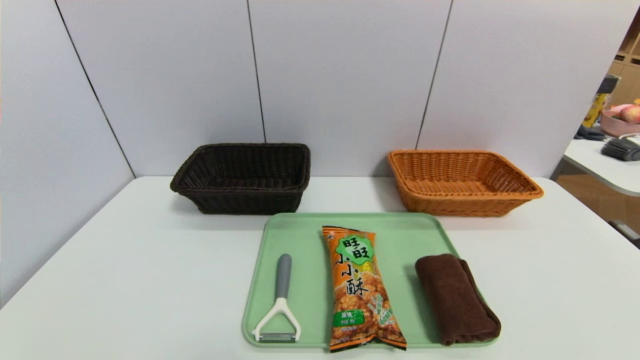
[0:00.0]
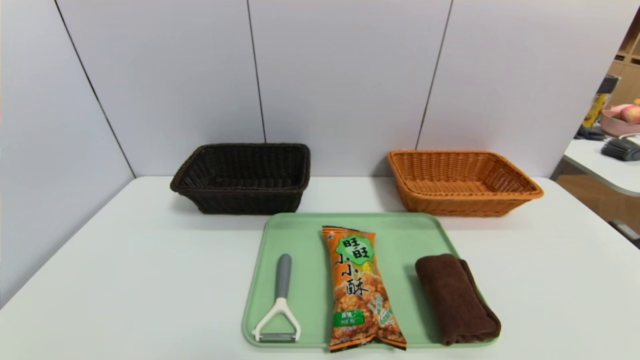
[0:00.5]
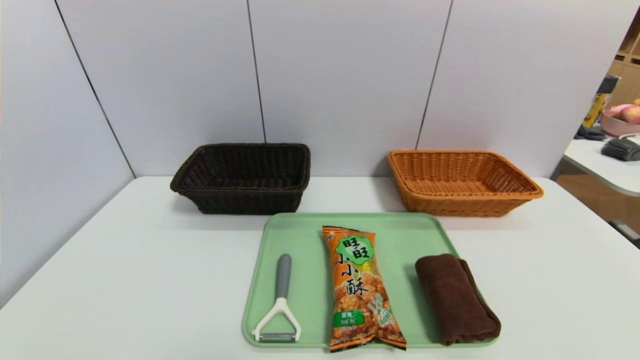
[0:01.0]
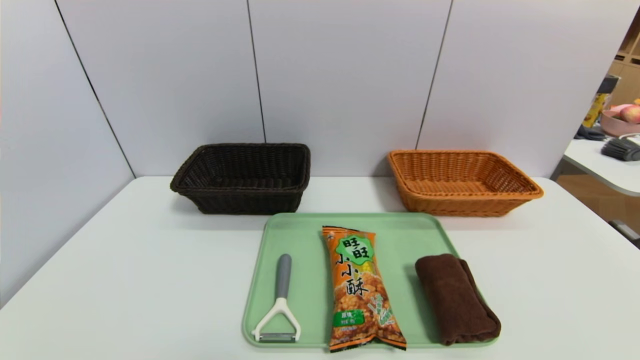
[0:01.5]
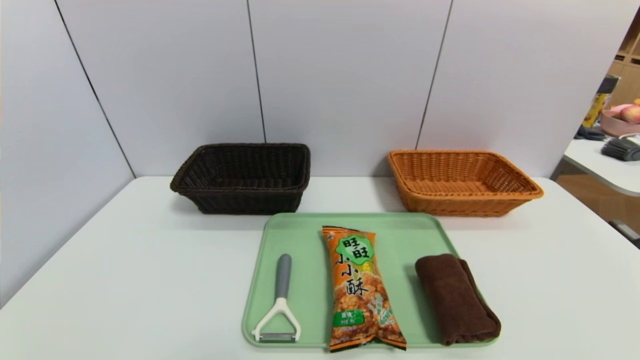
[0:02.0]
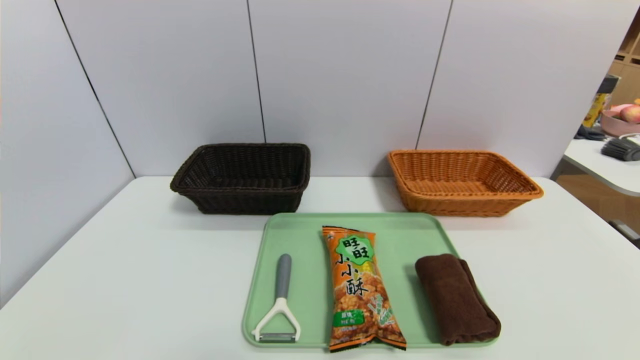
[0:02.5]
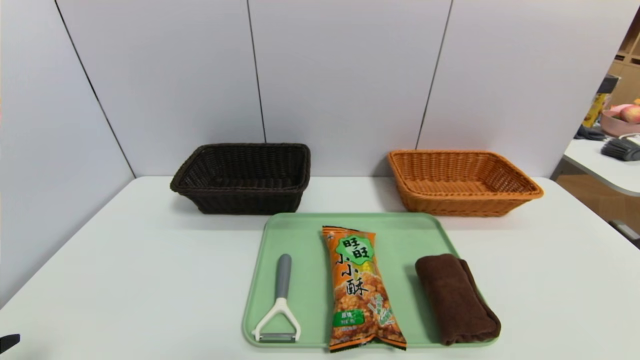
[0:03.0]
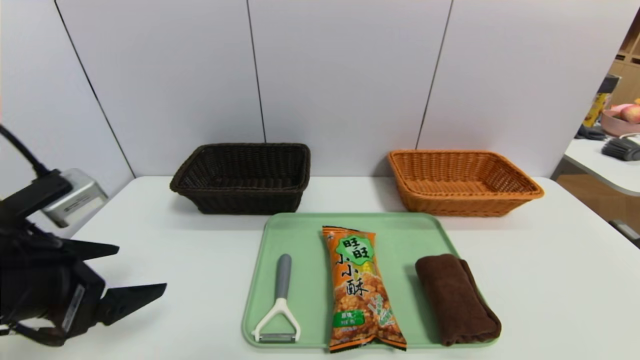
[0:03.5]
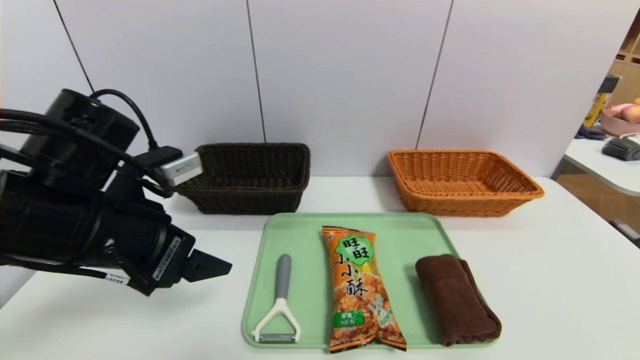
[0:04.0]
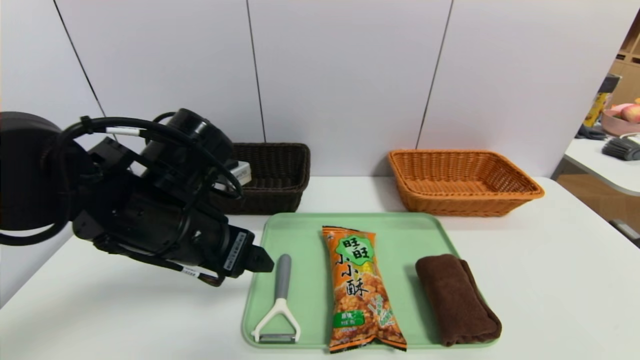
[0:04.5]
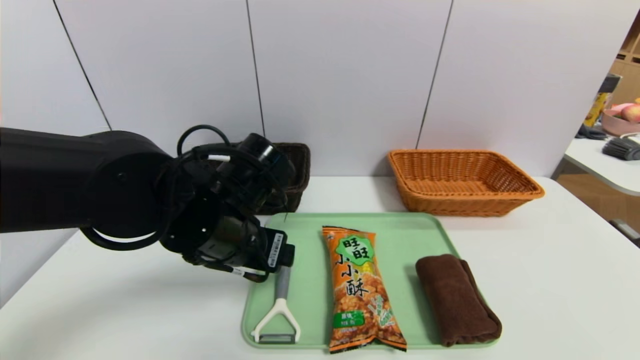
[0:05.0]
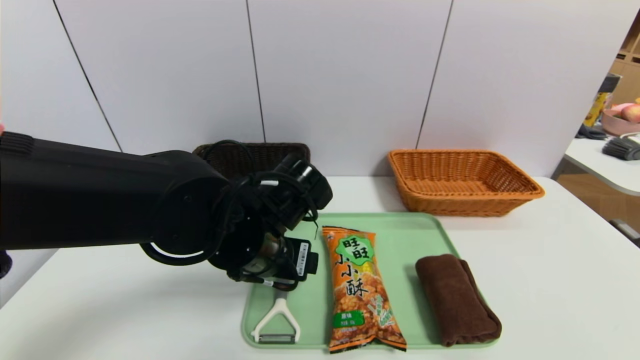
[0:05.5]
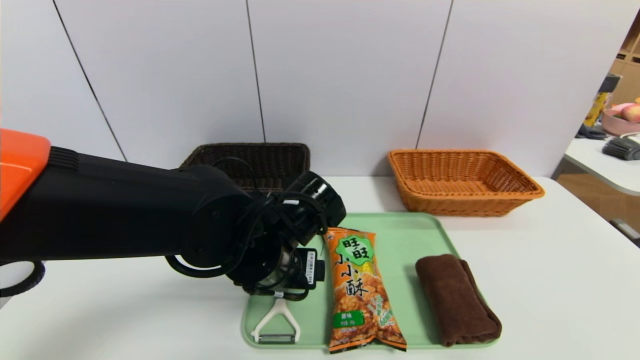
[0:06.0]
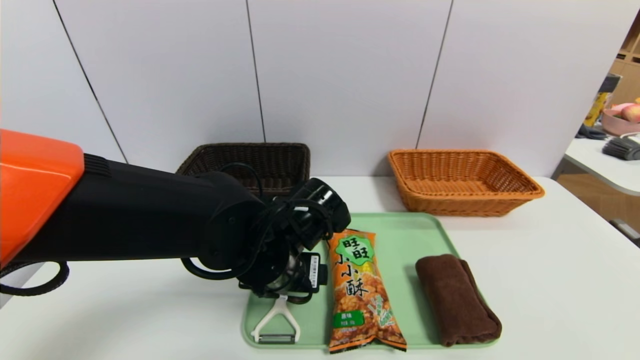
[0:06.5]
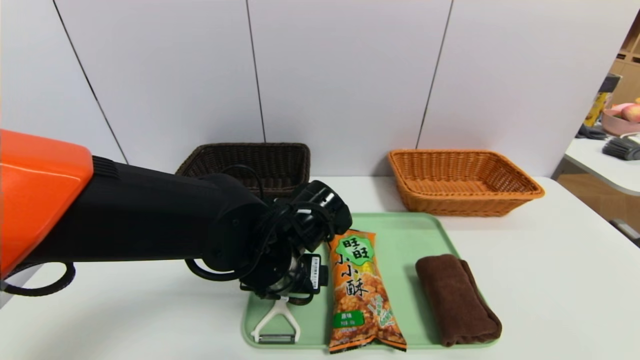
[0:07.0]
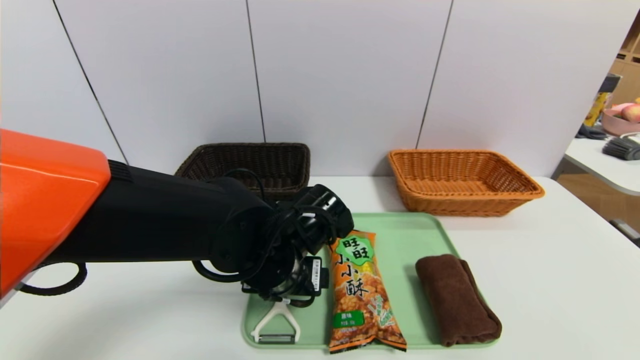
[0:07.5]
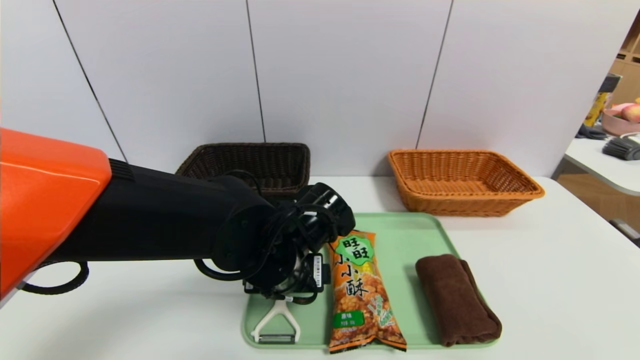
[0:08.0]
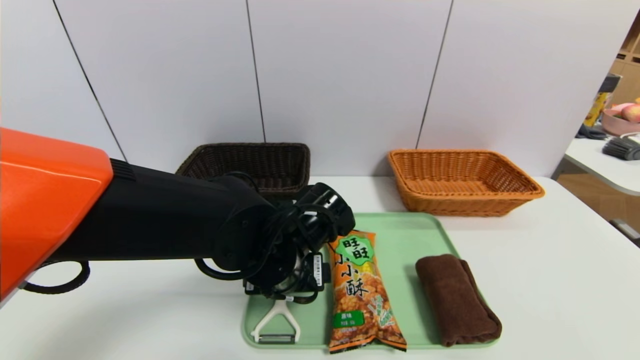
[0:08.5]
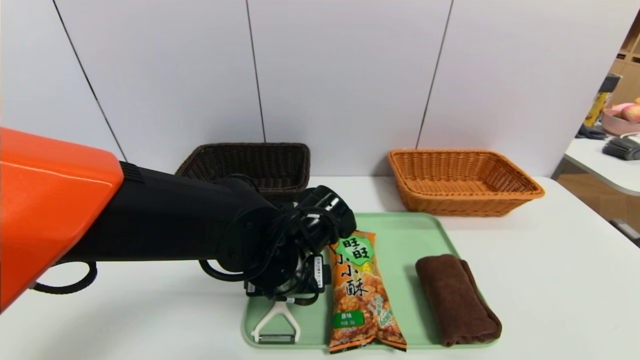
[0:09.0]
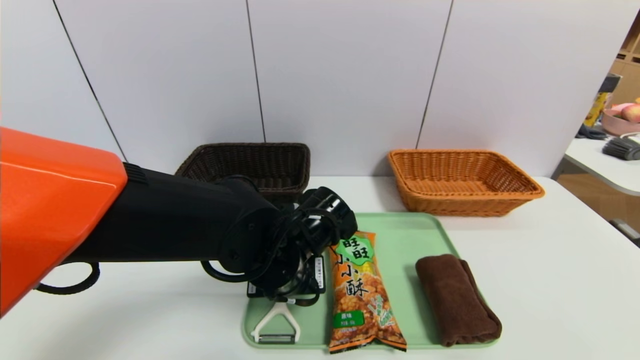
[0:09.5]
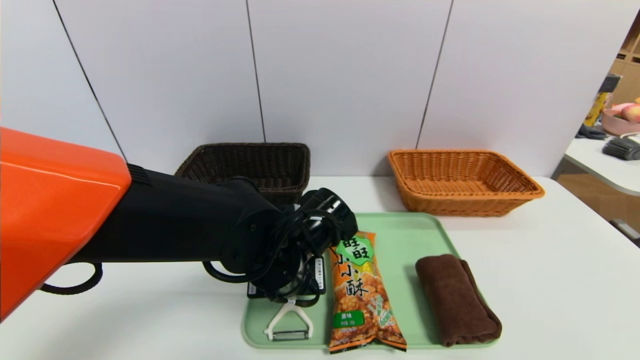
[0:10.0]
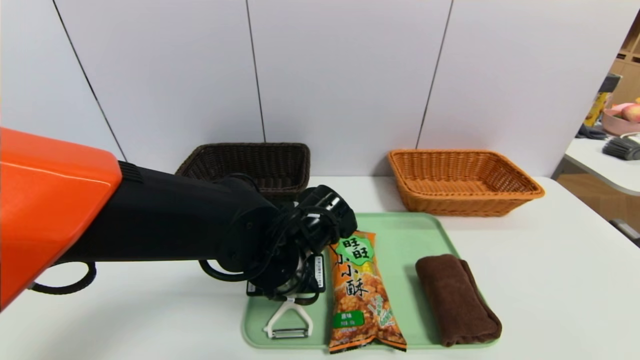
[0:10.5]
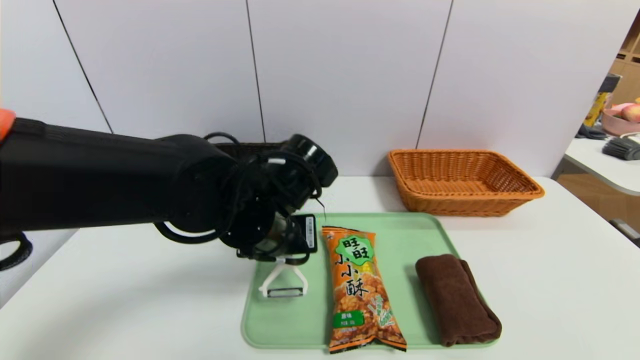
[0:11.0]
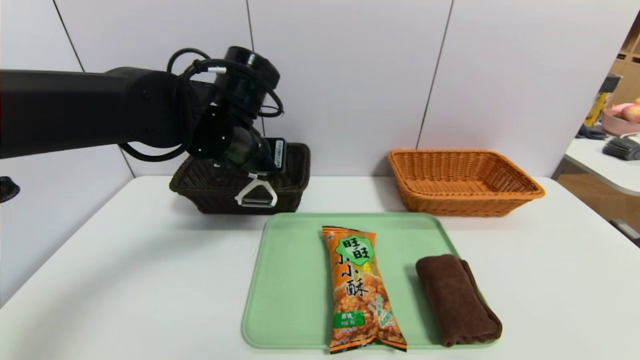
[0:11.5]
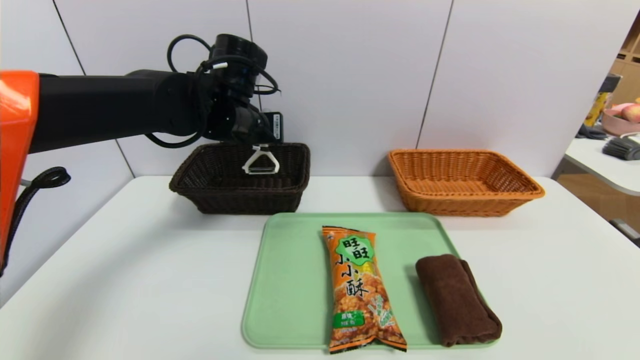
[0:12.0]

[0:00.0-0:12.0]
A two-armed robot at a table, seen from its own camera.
Task of the whole recording: place the food in the right basket with the right gripper, and place the non food items in the left basket with the left gripper.
0:00.0 to 0:02.0: The two grippers keep their place.
0:02.0 to 0:04.0: The left gripper shifts roughly 30 cm forward, upward and to the right.
0:04.0 to 0:06.0: The left gripper travels to the right and downward by about 15 cm.
0:06.0 to 0:08.0: There are only small adjustments of the grippers.
0:08.0 to 0:10.0: The left gripper closes.
0:10.0 to 0:12.0: The left gripper is displaced forward, upward and to the left by some 20 cm.

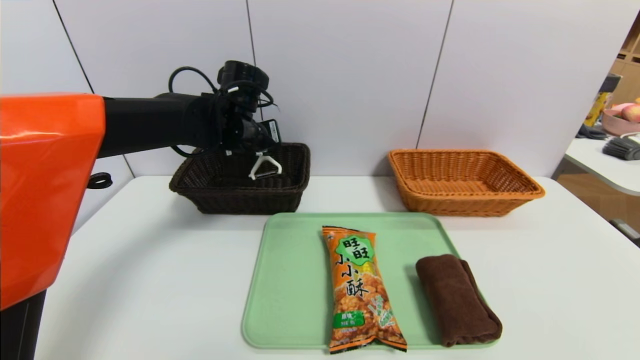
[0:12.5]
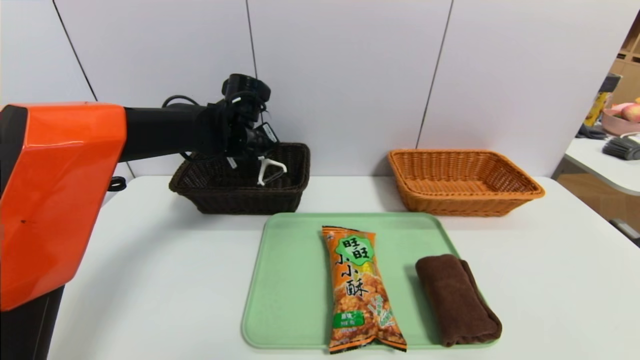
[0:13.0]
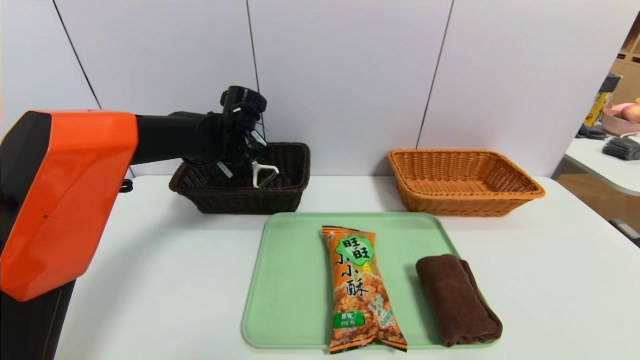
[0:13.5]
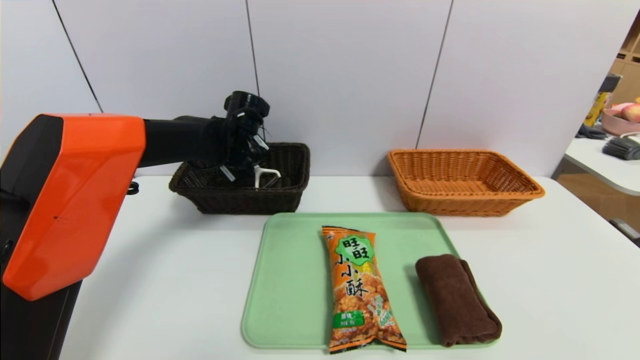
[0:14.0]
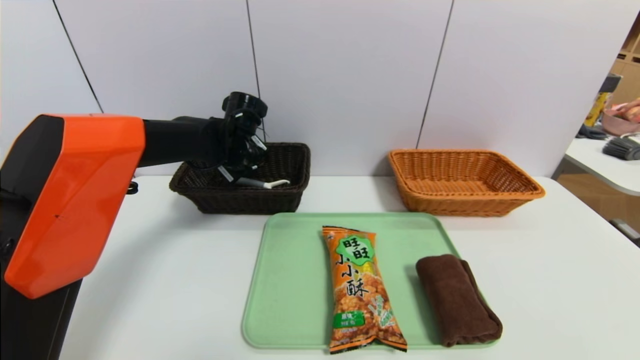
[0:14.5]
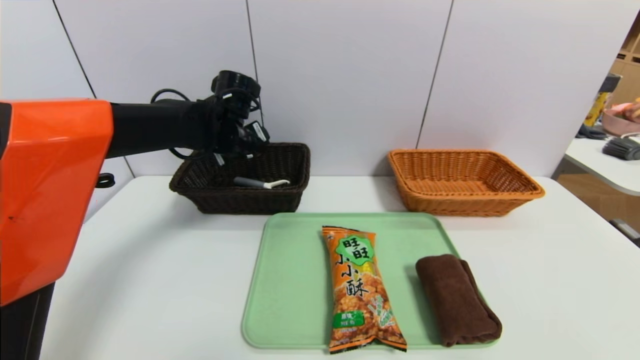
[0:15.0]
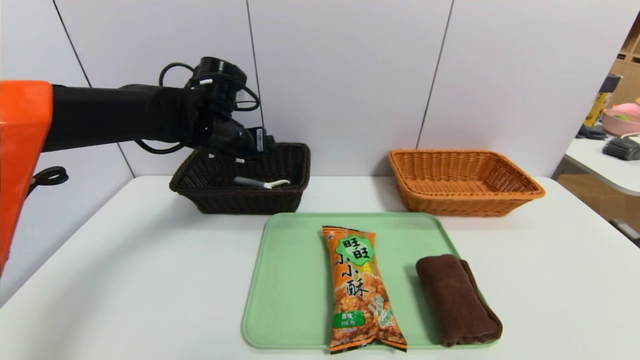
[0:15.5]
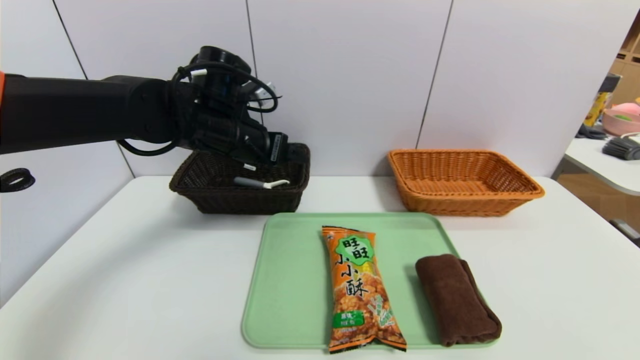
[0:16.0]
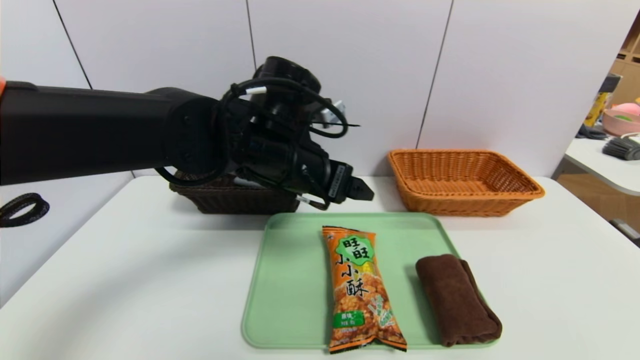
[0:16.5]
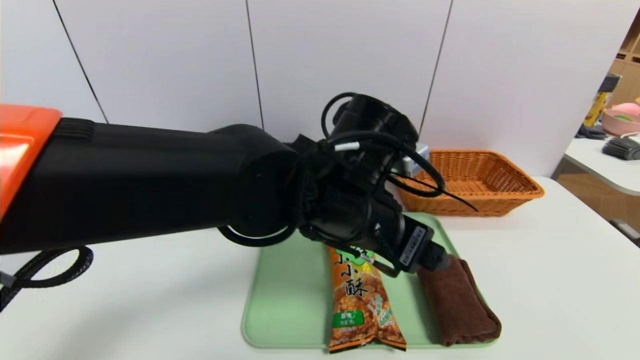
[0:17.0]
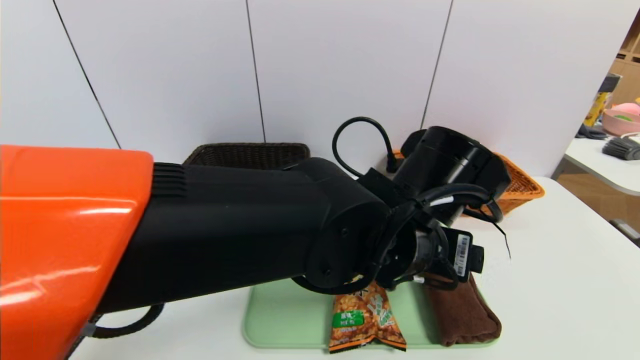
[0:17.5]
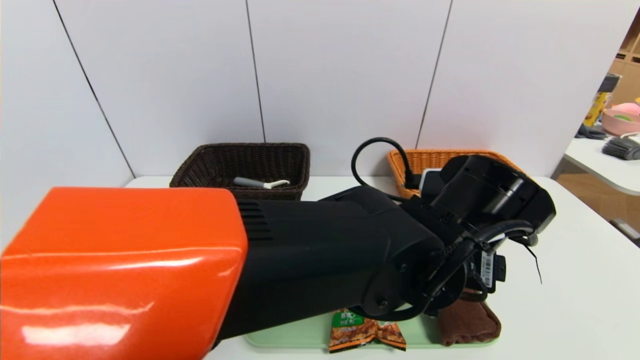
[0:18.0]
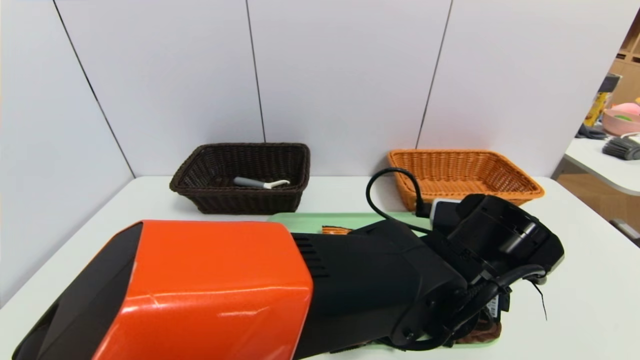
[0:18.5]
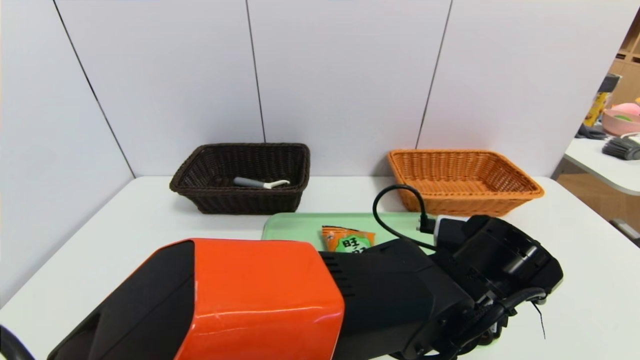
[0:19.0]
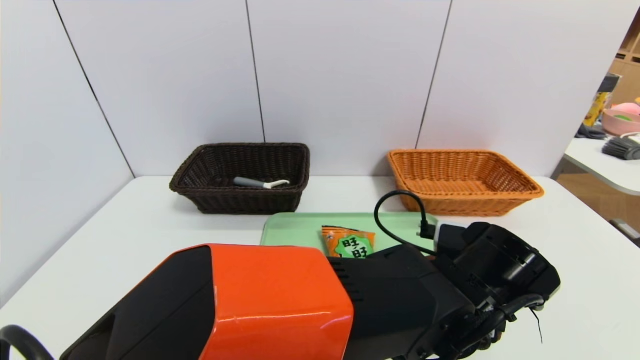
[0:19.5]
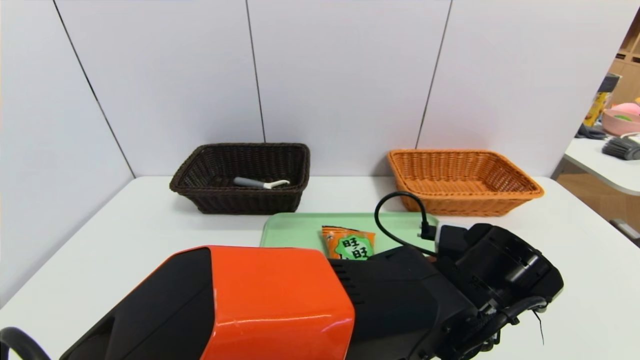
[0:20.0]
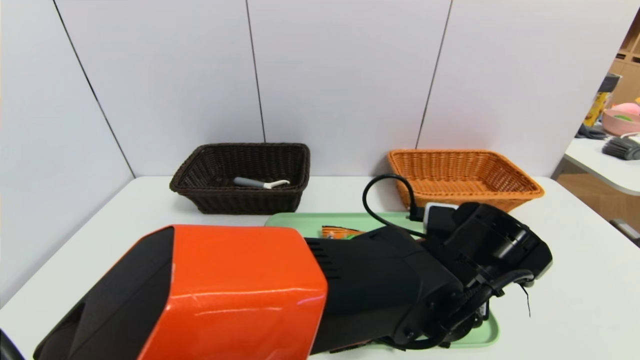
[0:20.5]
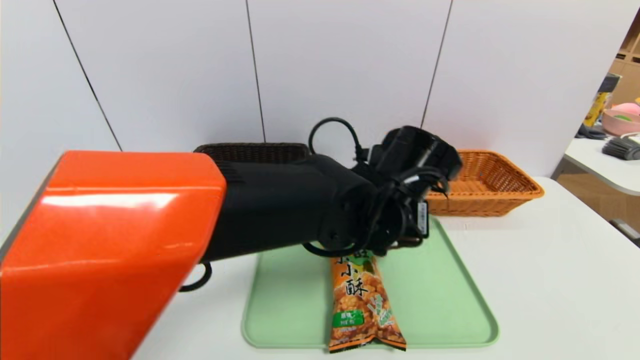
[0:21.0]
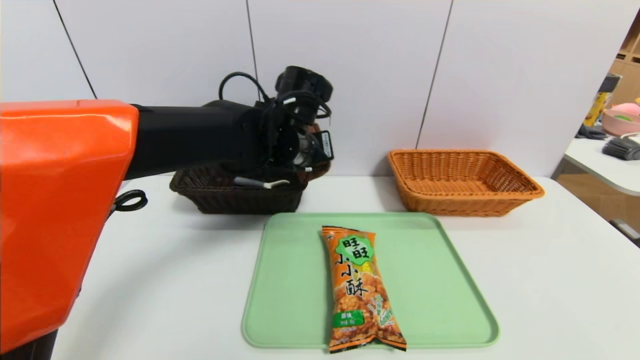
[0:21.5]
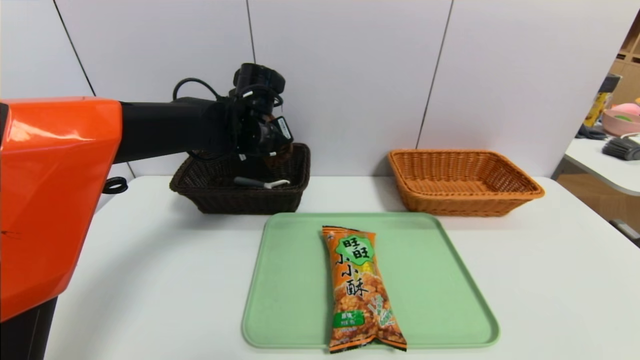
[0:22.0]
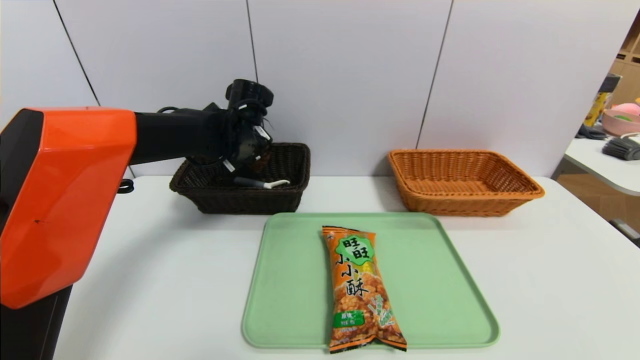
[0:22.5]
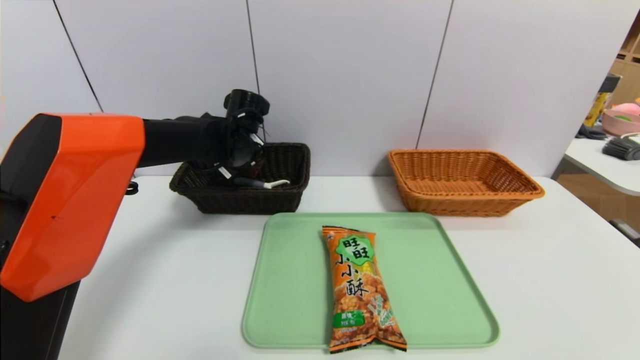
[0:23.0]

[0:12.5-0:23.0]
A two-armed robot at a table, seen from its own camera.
Task of the whole recording: place the food in the right basket with the right gripper, and place the non food items in the left basket with the left gripper.
Step, 0:12.5 to 0:16.0: Grasp the peeler and put it in the left basket.
0:12.5 to 0:14.5: The left gripper moves some 5 cm, and opens.
0:14.5 to 0:16.5: The left gripper moves backward, to the right and upward, some 20 cm.
0:16.5 to 0:19.0: The left gripper shifts approximately 25 cm to the right, downward and backward.
0:19.0 to 0:21.0: The left gripper heads forward, to the left and upward, covering approximately 10 cm, and closes its fingers.
0:21.0 to 0:23.0: The left gripper travels to the left and forward by roughly 25 cm.
